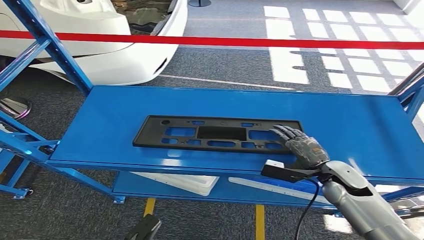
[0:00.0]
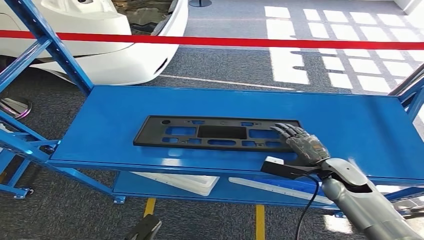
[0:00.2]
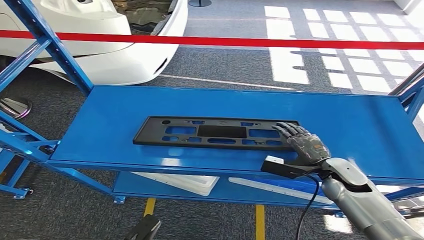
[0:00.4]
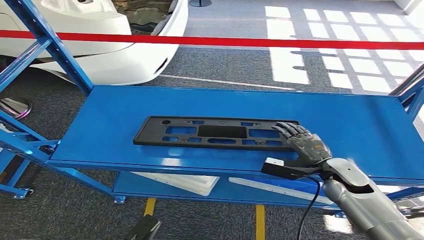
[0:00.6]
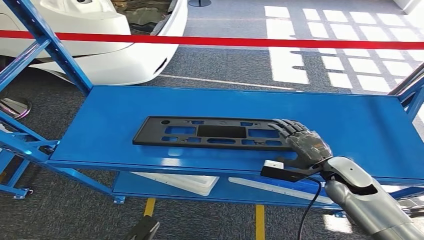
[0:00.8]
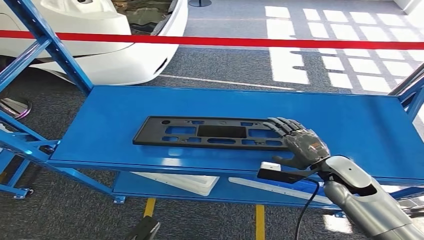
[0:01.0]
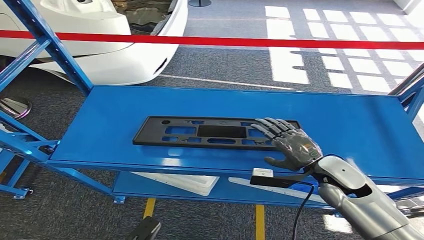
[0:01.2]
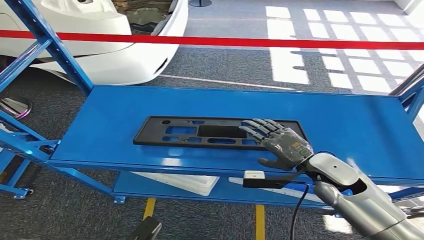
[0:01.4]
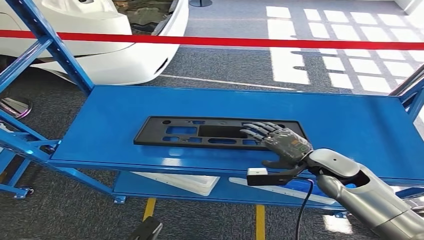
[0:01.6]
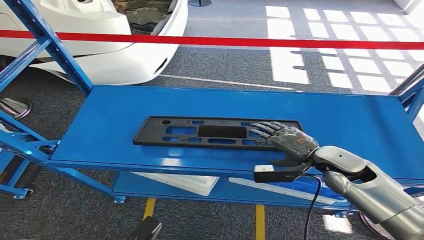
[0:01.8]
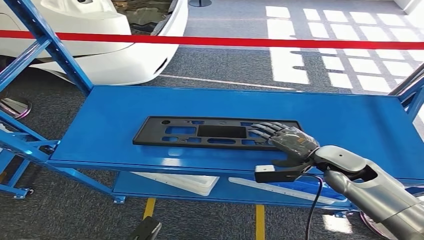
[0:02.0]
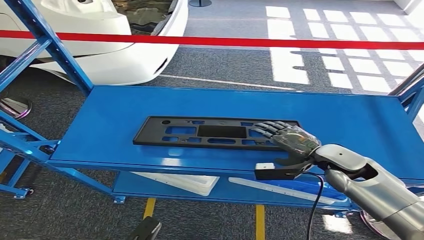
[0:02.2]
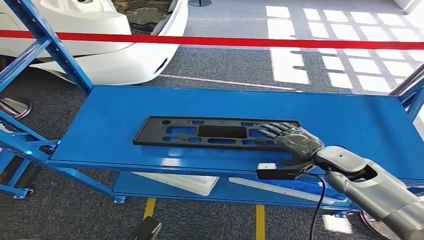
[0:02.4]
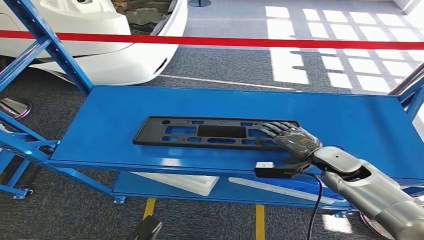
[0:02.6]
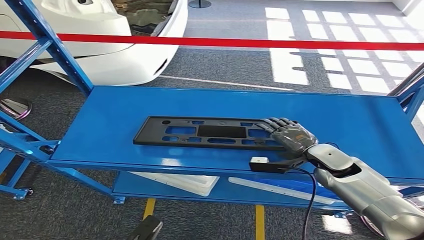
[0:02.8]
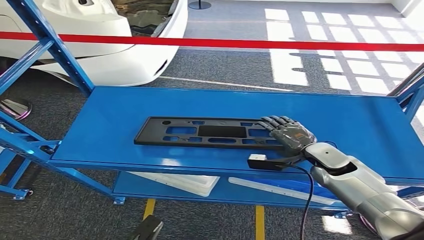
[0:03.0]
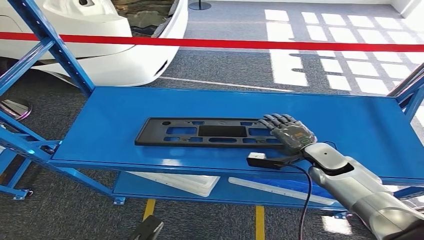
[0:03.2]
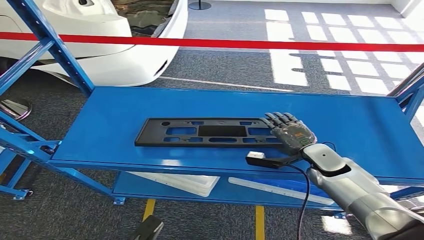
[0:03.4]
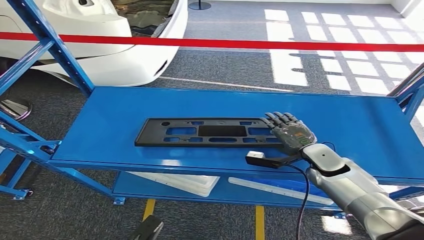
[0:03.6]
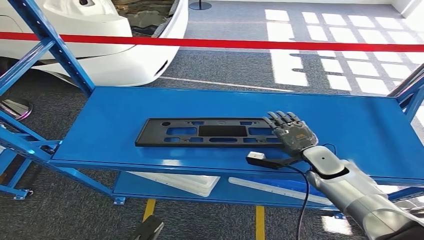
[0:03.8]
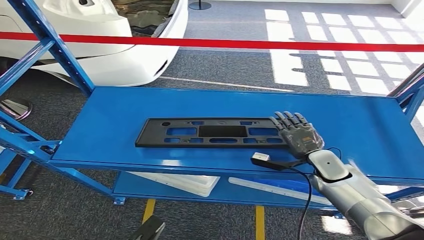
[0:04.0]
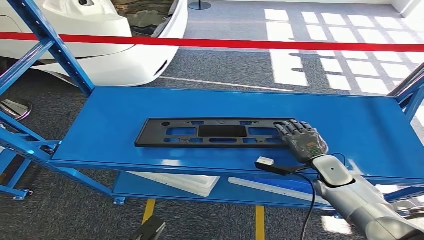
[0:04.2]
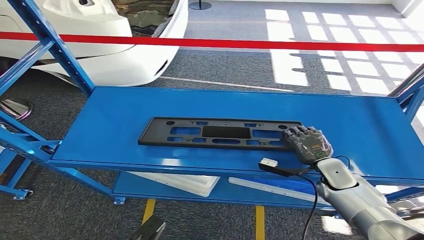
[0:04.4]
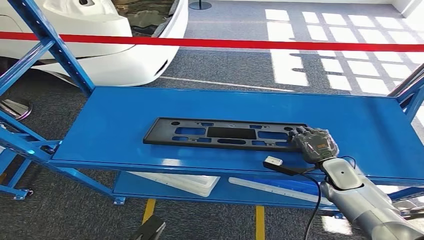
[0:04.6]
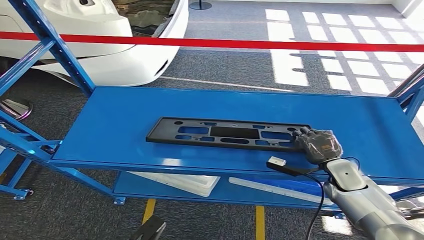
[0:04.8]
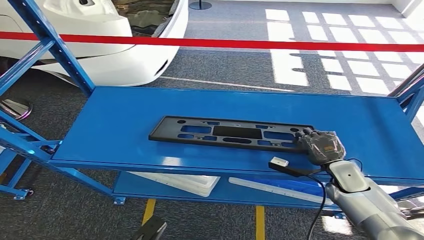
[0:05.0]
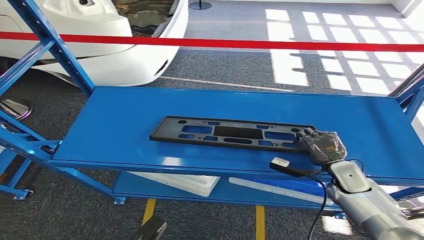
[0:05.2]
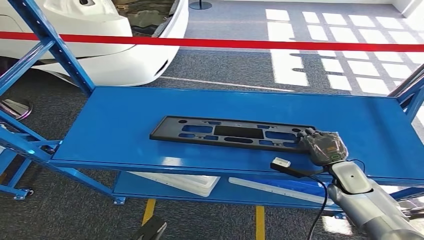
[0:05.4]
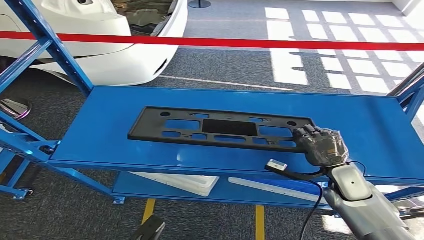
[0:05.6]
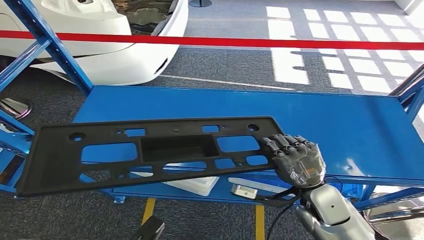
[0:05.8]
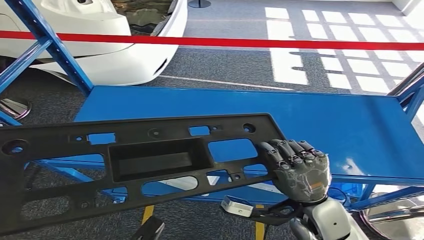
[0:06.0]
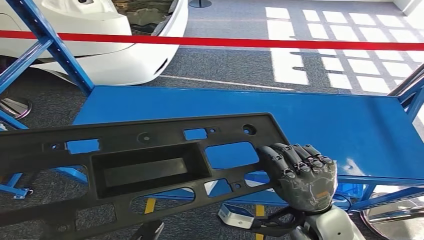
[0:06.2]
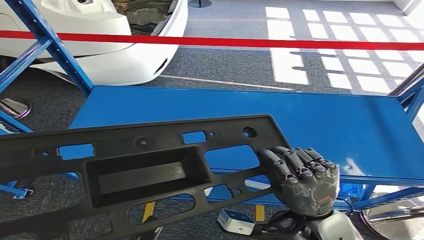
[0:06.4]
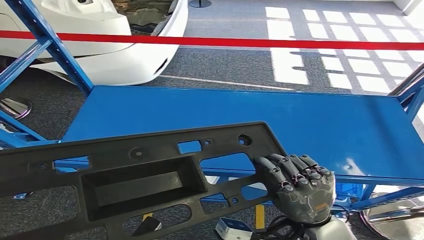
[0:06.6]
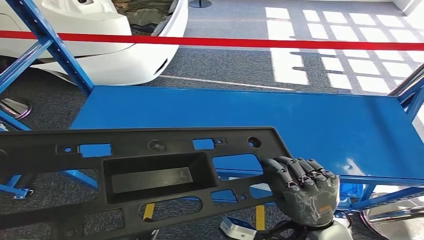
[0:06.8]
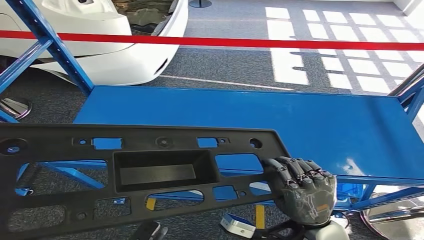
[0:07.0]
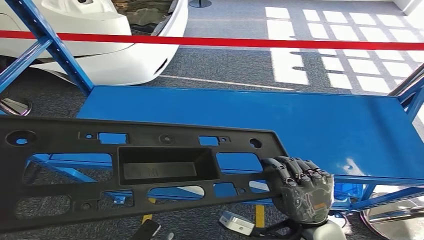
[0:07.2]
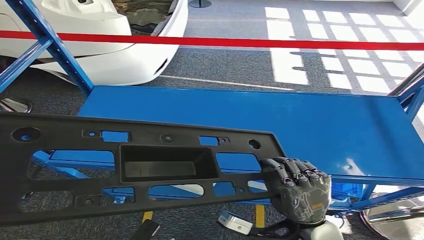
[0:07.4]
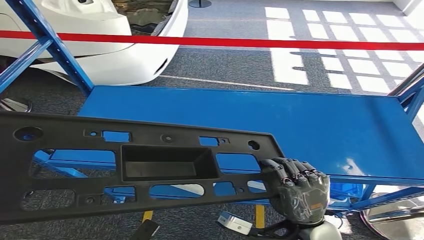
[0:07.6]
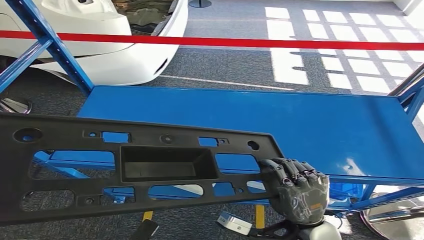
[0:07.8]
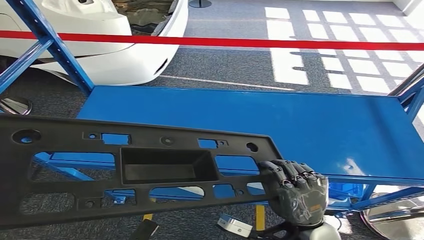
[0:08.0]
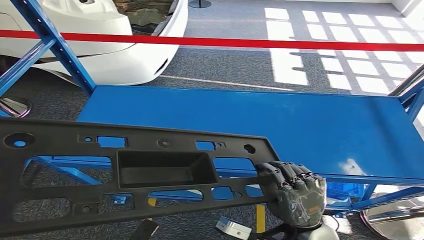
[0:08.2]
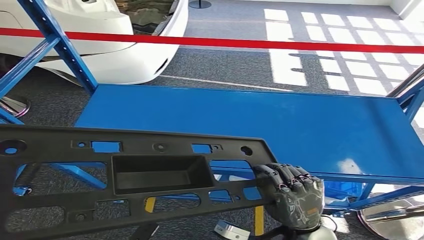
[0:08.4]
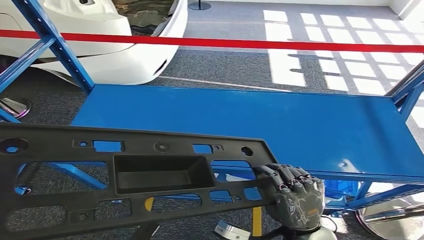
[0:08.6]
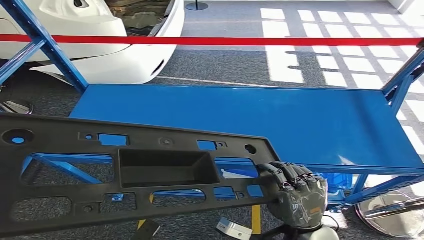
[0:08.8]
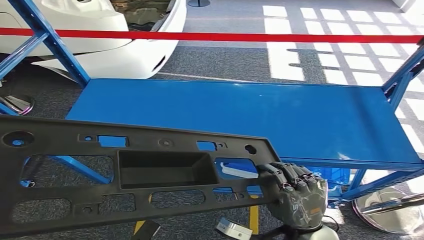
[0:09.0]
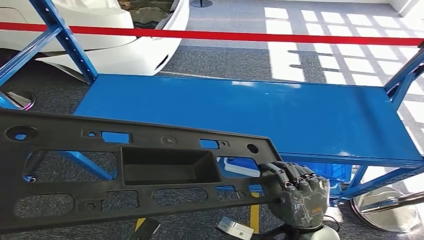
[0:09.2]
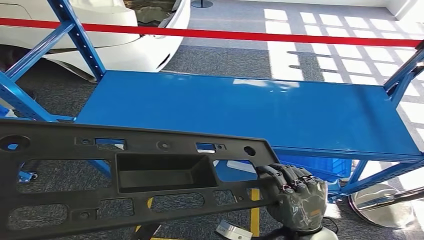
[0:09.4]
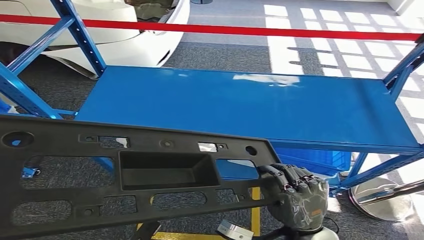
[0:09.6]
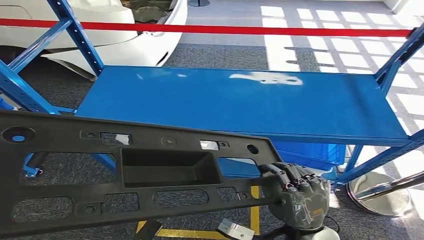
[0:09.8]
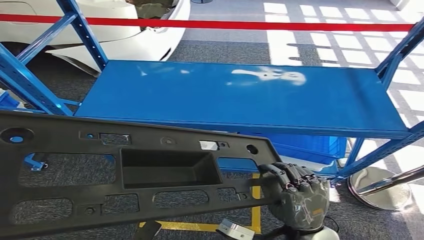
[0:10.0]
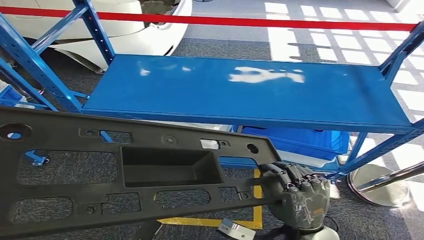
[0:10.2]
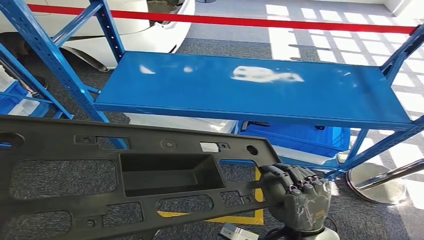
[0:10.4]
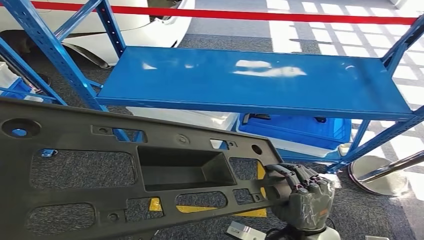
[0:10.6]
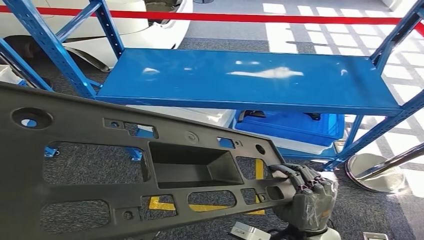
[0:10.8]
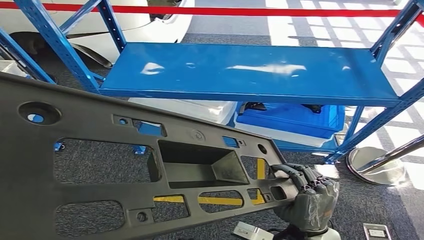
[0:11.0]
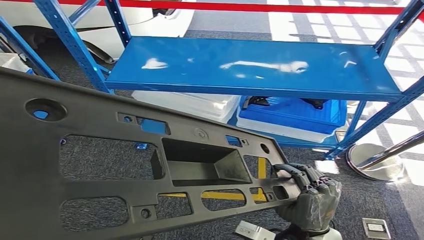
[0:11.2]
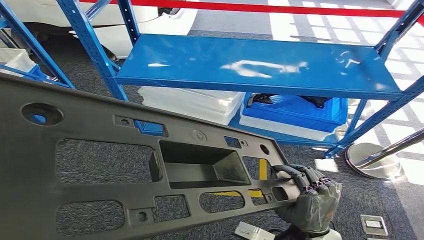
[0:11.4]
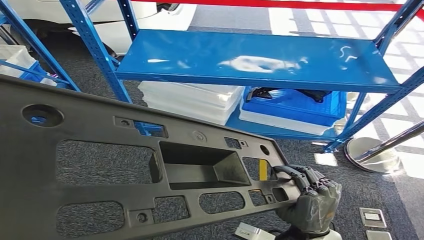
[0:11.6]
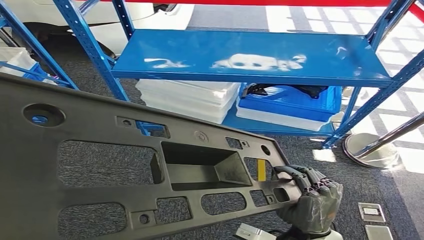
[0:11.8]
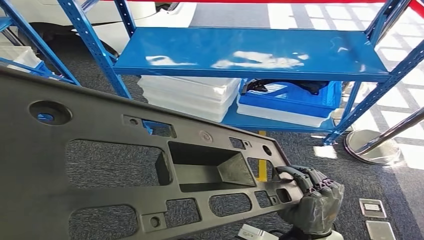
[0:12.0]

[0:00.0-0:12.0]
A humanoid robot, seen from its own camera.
Step, 0.0 to 7.6 s: Pick up the large material from the shelf.
0.0 to 1.6 s: The right hand goes some 5 cm upward.
1.6 to 3.0 s: The right hand moves about 5 cm.
3.0 to 4.4 s: The right hand shifts approximately 5 cm downward.
6.0 to 7.6 s: The right hand is displaced backward by approximately 5 cm.

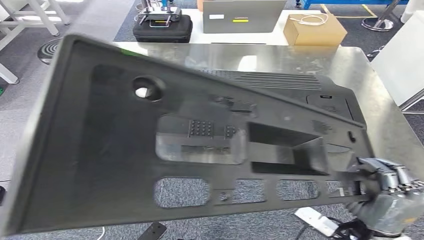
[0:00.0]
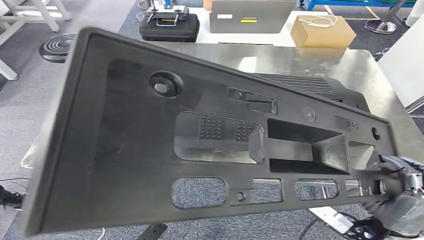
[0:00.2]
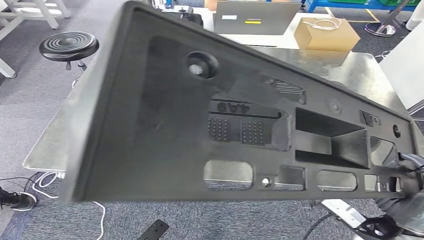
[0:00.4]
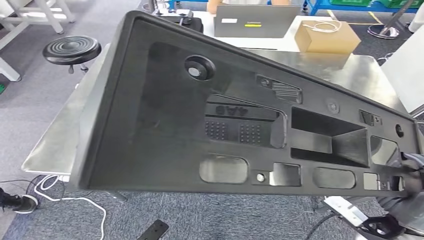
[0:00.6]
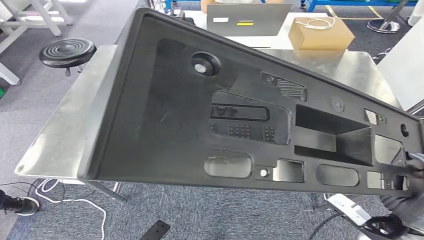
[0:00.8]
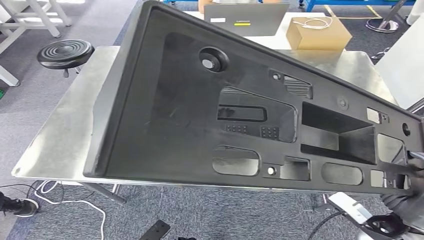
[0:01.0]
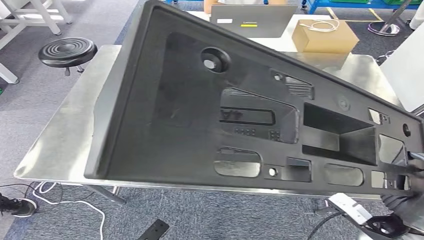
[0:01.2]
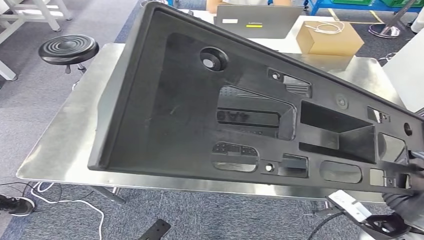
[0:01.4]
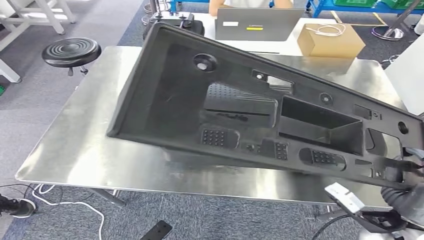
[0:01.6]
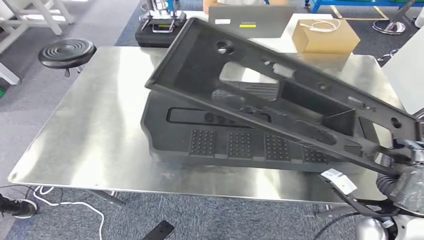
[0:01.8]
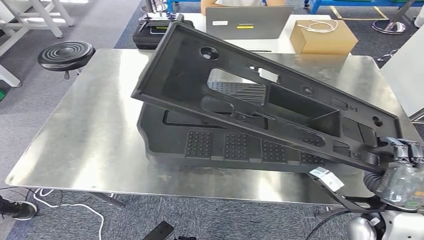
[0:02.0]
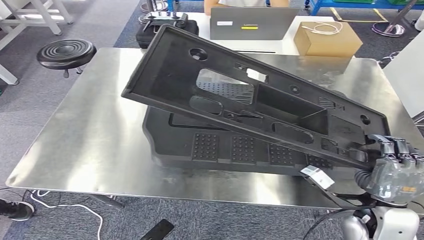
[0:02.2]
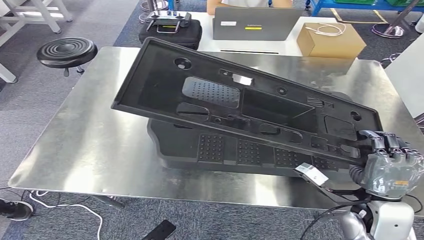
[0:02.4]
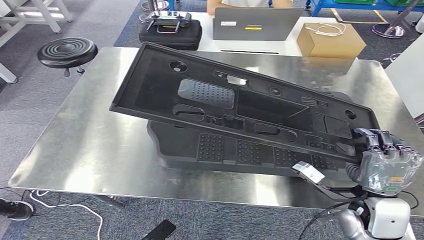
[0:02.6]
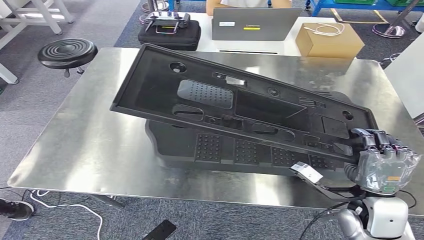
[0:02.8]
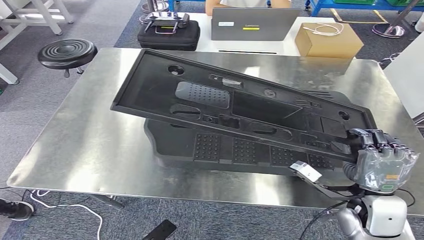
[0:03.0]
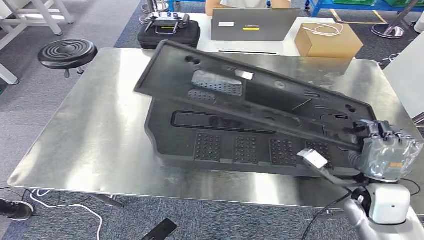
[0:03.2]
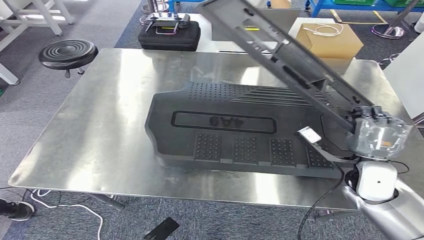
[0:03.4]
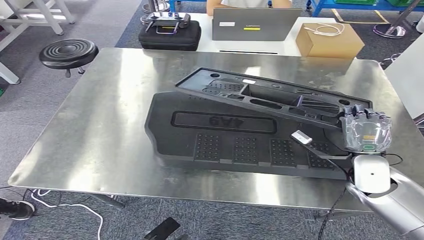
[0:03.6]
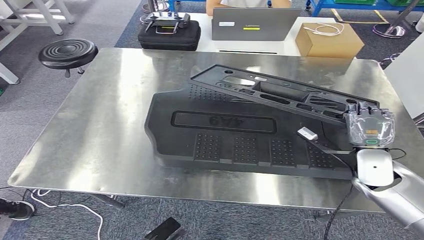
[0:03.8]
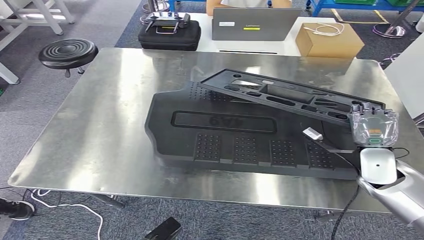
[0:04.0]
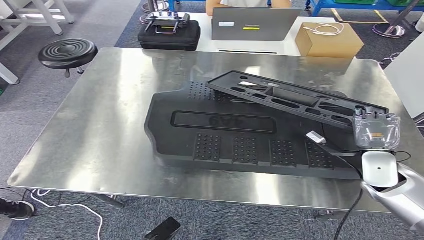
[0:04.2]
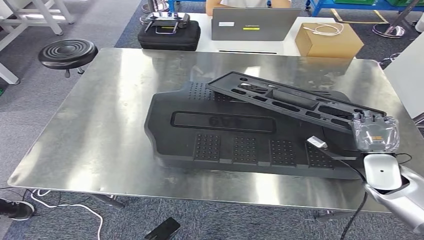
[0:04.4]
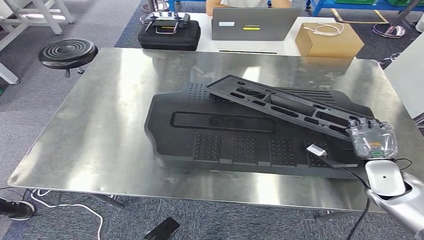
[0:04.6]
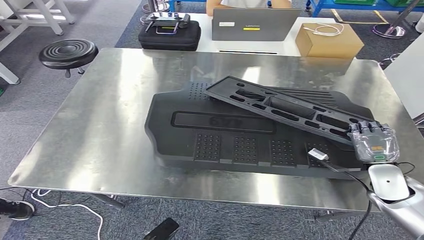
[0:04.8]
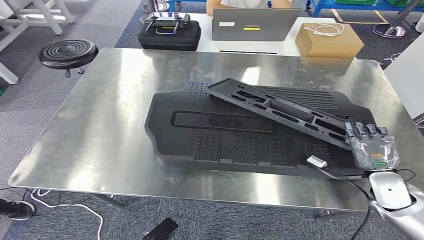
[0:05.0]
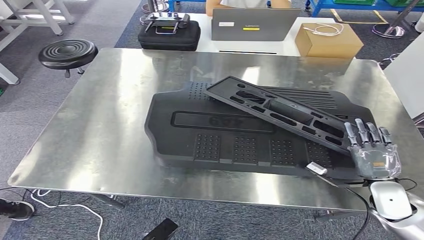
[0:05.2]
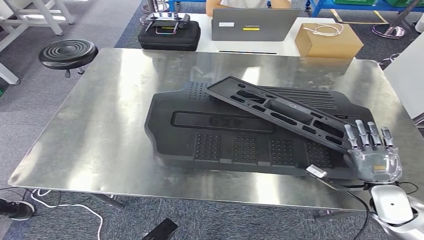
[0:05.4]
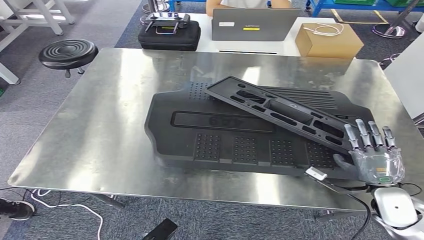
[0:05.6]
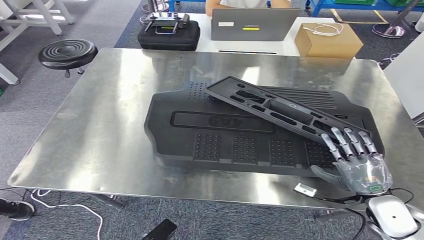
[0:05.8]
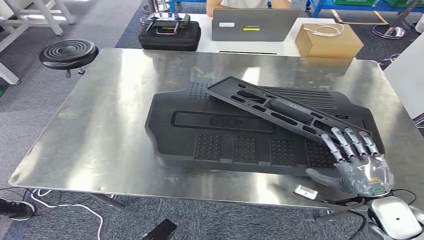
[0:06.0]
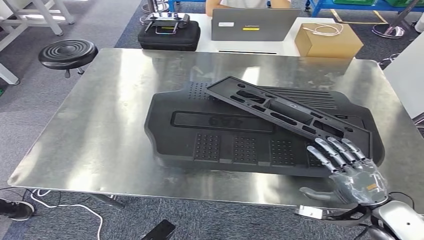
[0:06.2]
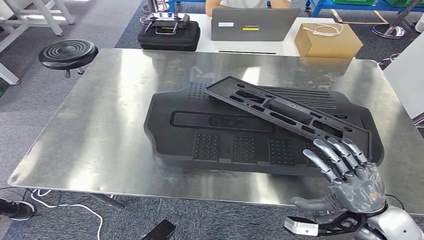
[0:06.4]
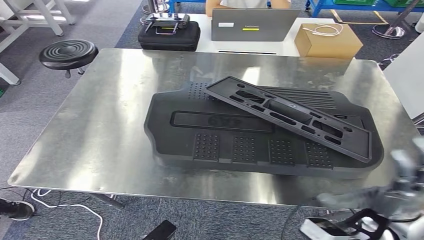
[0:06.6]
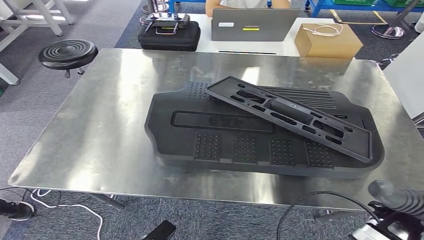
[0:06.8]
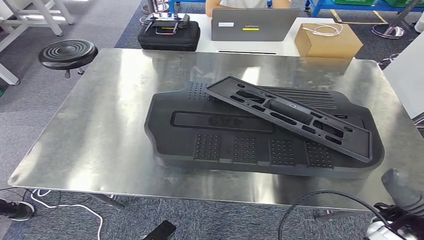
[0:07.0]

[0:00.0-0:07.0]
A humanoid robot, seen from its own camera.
Step, 1.0 to 6.8 s: Insert the large material into the corresponding slot on the workbench.
4.2 to 5.6 s: The right hand travels backward by some 5 cm.
5.6 to 7.0 s: The right hand is displaced upward, backward and to the left by some 15 cm.
